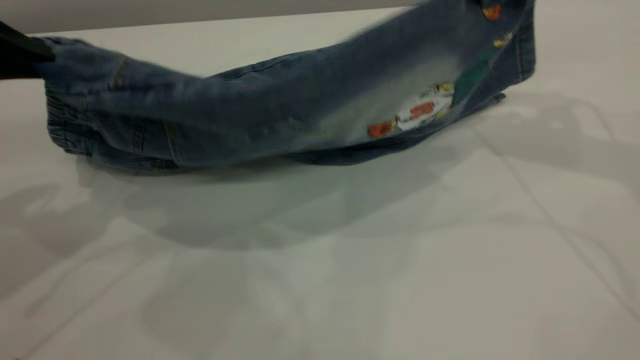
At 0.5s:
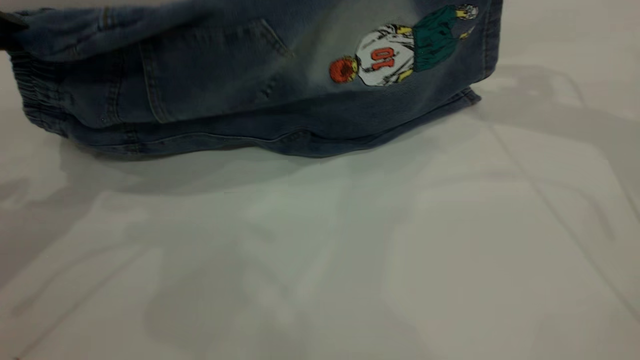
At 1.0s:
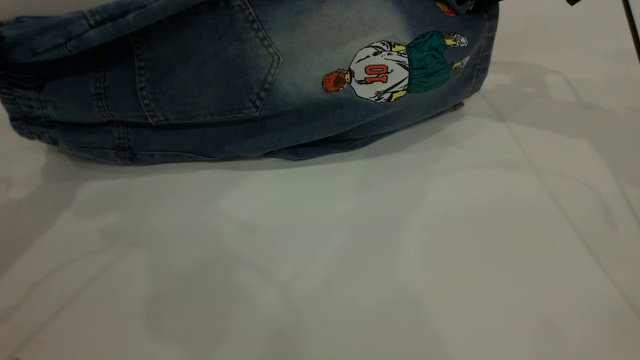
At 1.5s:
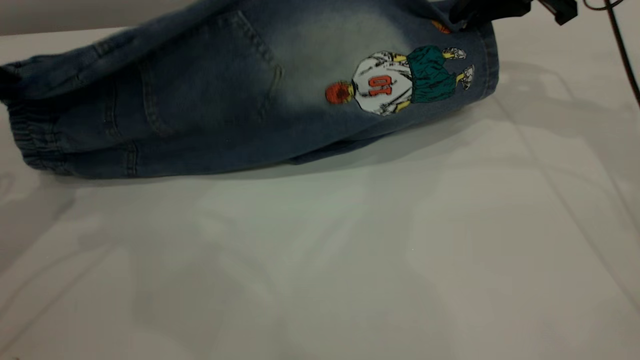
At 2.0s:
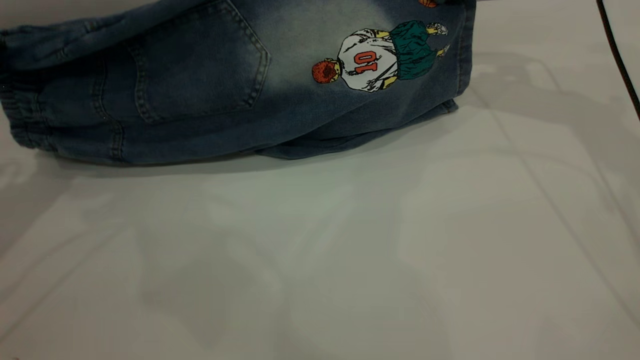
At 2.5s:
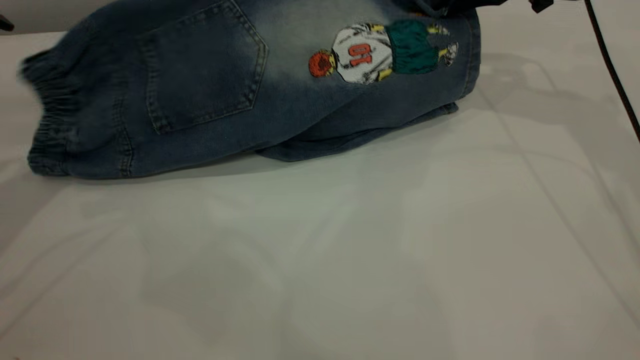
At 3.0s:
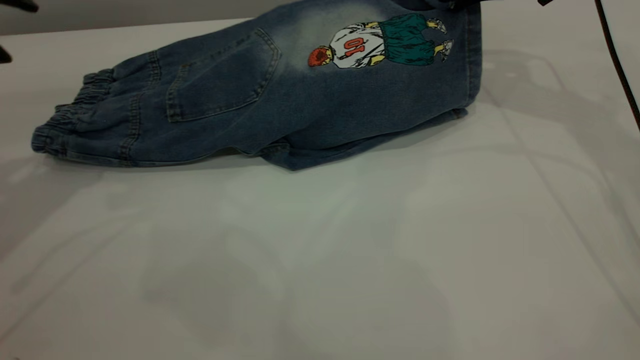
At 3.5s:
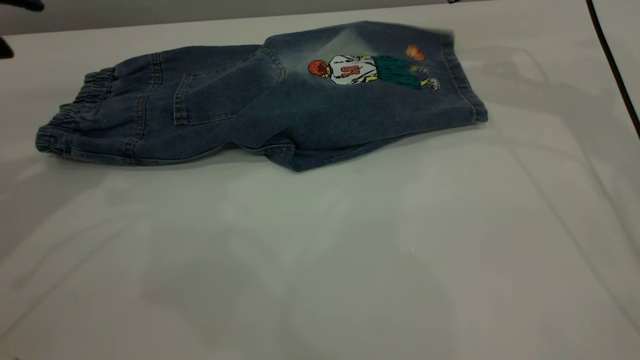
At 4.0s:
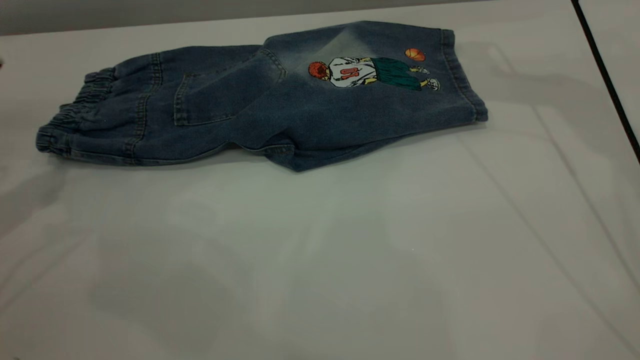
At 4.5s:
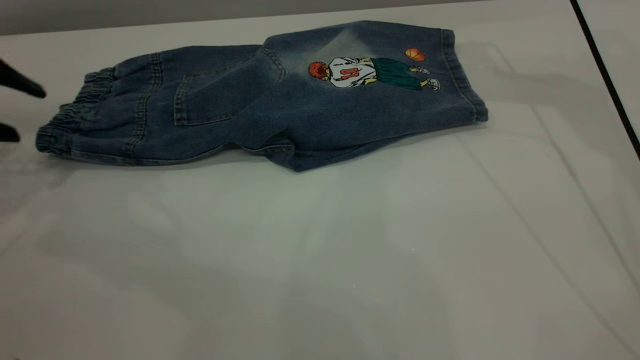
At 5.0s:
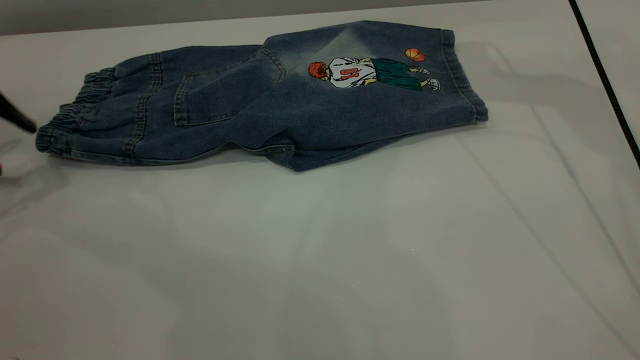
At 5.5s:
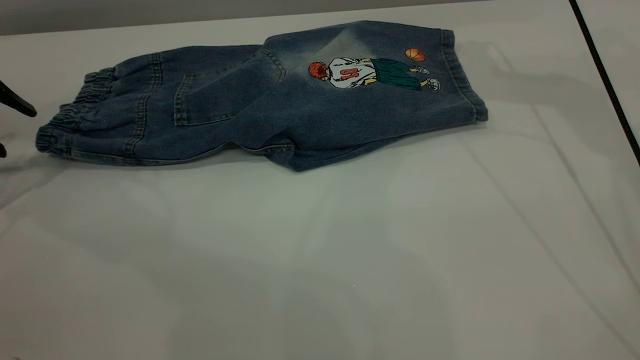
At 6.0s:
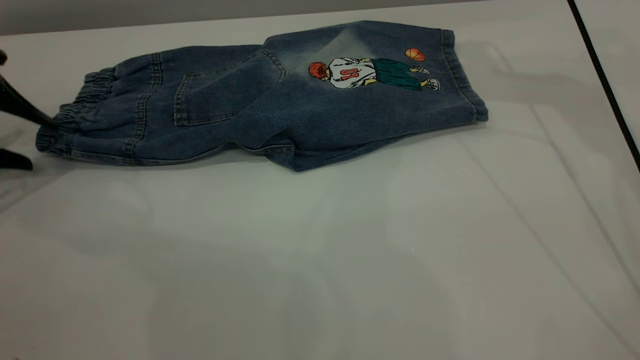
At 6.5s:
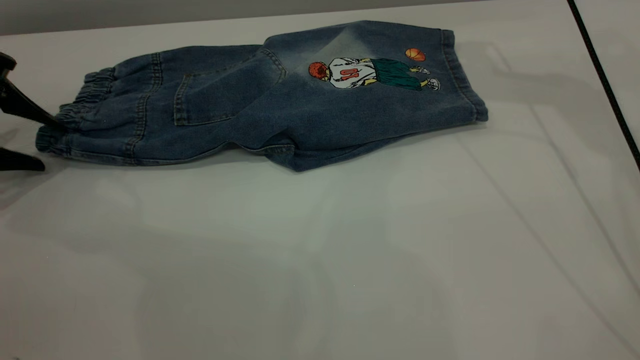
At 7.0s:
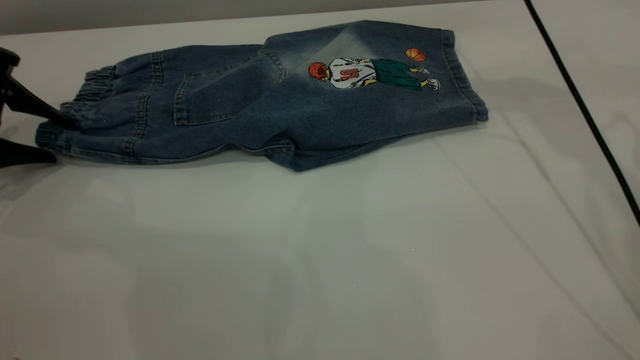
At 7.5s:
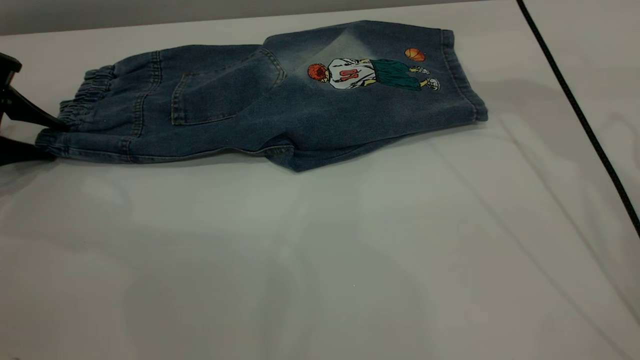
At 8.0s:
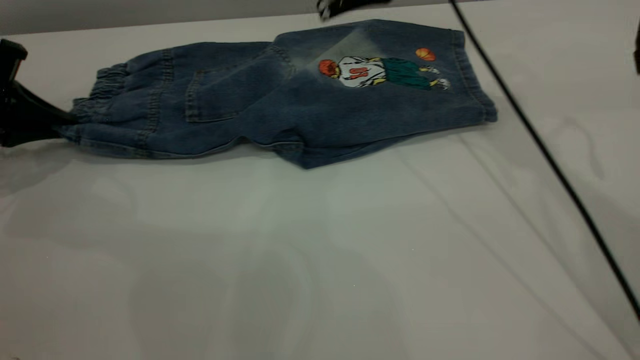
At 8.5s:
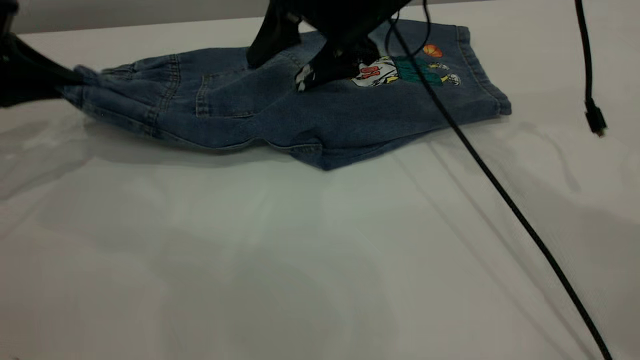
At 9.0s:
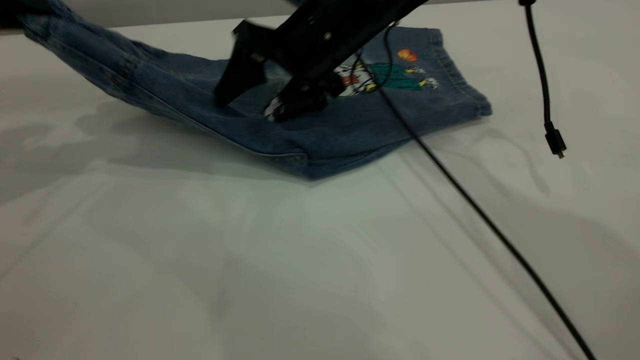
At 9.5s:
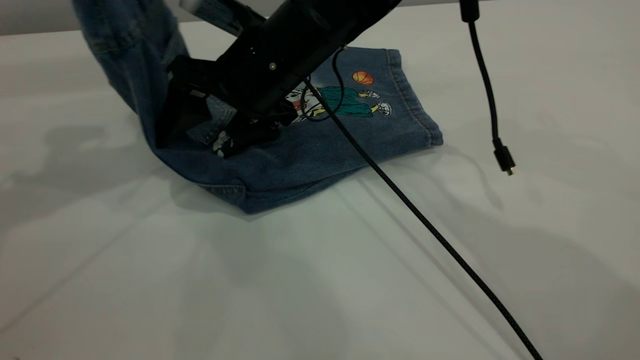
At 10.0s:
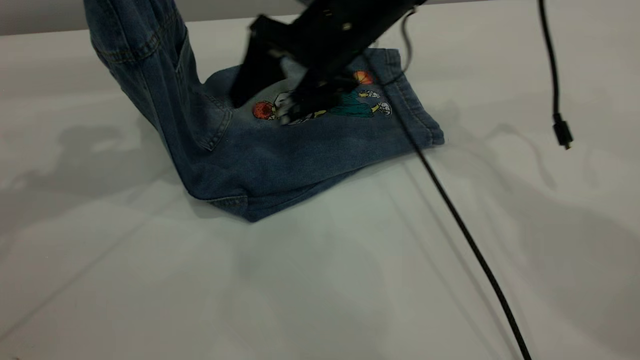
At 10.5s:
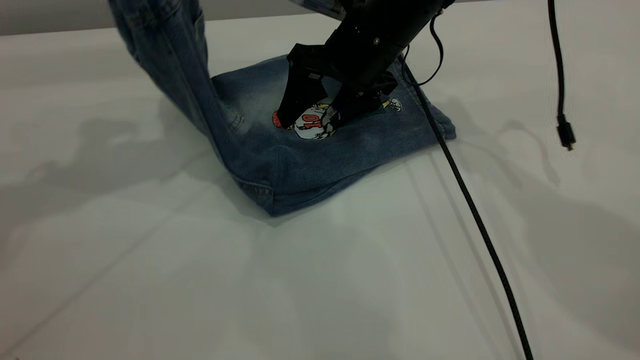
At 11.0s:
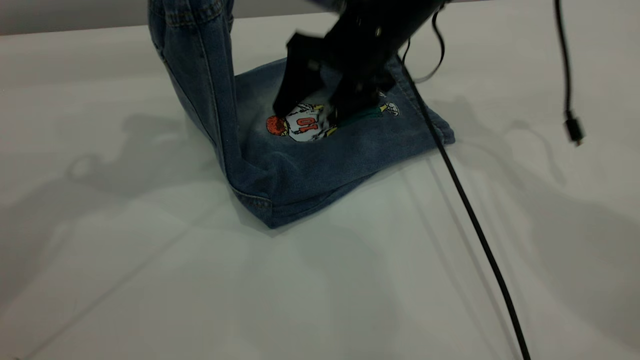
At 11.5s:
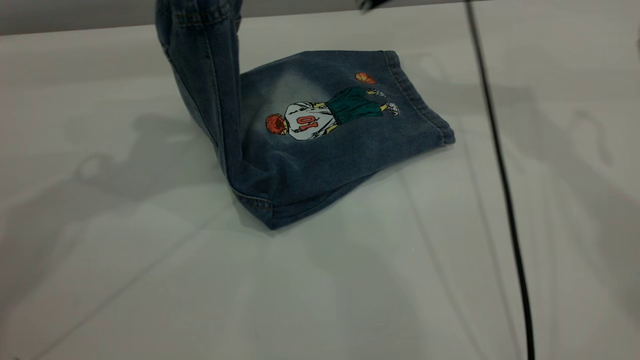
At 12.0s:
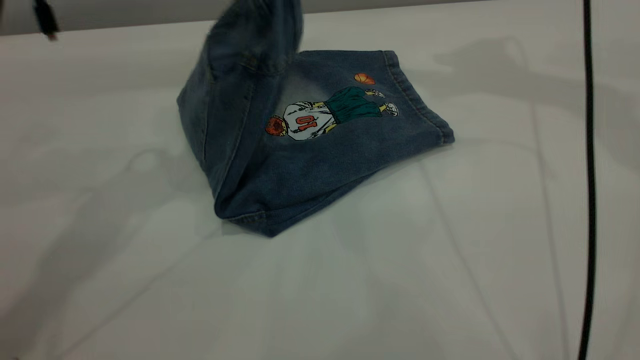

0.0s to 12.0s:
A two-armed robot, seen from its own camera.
Step, 0.0s to 4.0s: Fold the bottom of the pants upward.
0.0s to 2.0s: The left gripper moves approximately 5 cm. Meanwhile the right gripper heads forward, covering approximately 10 cm.
2.0s to 4.0s: The left gripper opens its fingers, while the right gripper shifts by about 5 cm, and opens its fingers.
4.0s to 6.0s: The left gripper travels downward and forward by about 10 cm.
6.0s to 8.0s: The left gripper closes, while the right gripper heads to the left, covering about 10 cm.
8.0s to 10.0s: The left gripper goes about 20 cm upward and to the right, while the right gripper is displaced downward by about 10 cm.
10.0s to 12.0s: The right gripper heads upward and to the right, covering about 25 cm. Meanwhile the left gripper goes roughly 15 cm to the right.

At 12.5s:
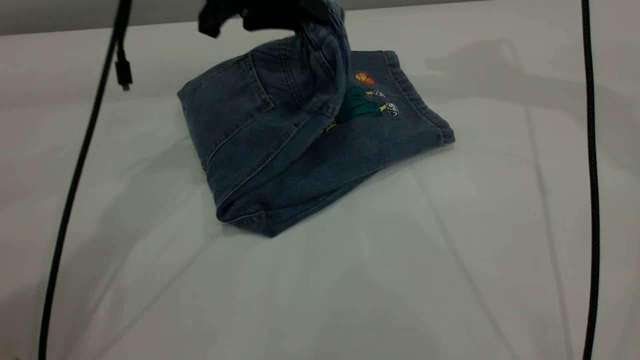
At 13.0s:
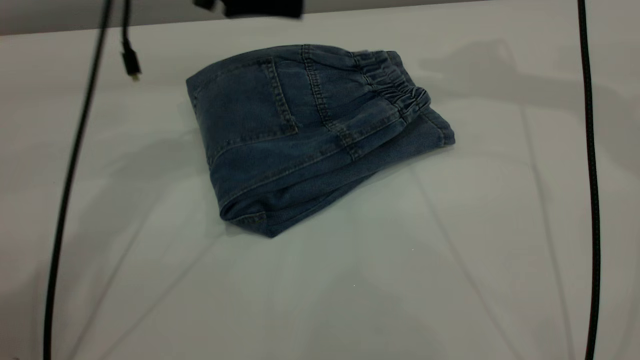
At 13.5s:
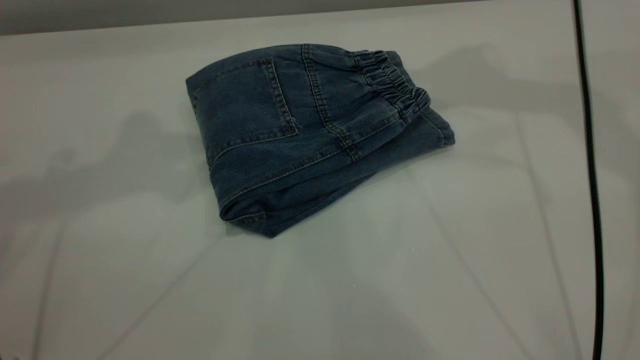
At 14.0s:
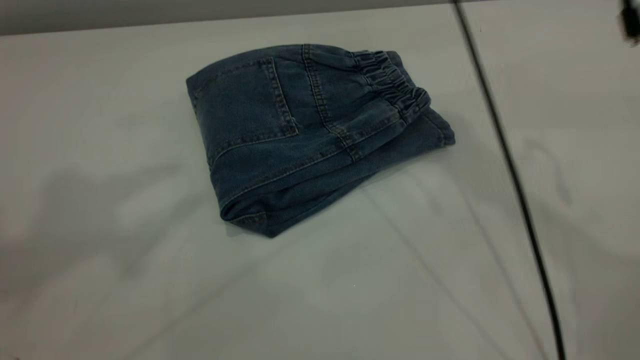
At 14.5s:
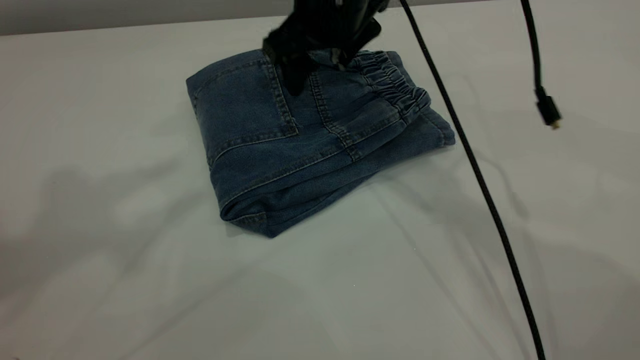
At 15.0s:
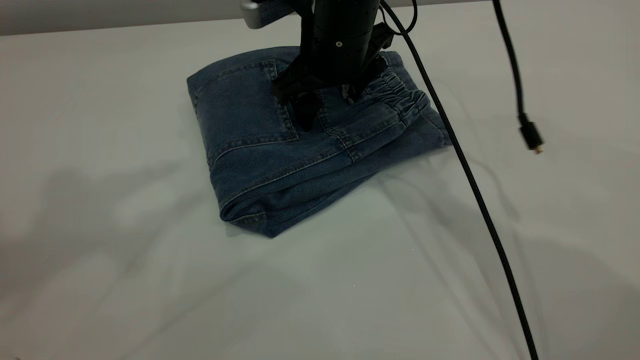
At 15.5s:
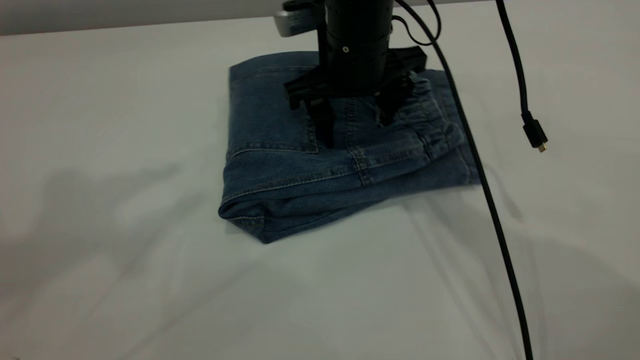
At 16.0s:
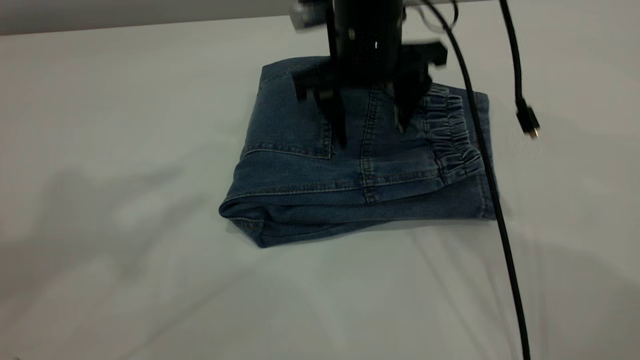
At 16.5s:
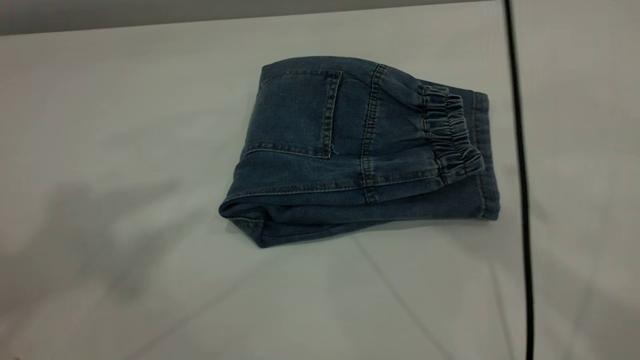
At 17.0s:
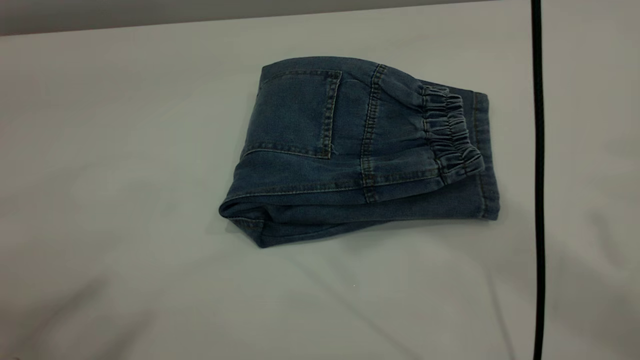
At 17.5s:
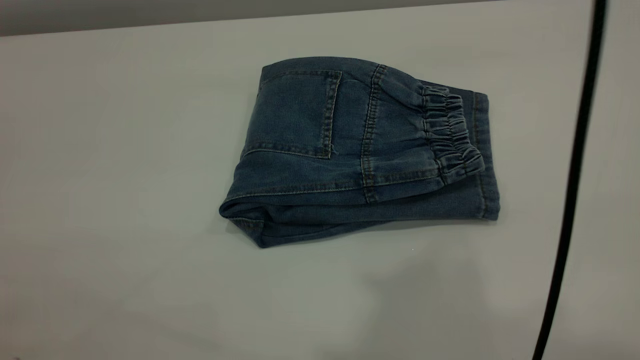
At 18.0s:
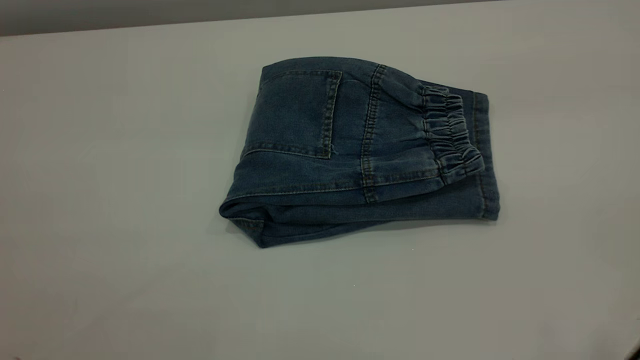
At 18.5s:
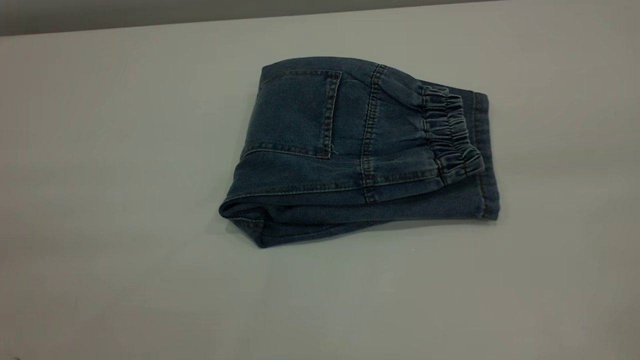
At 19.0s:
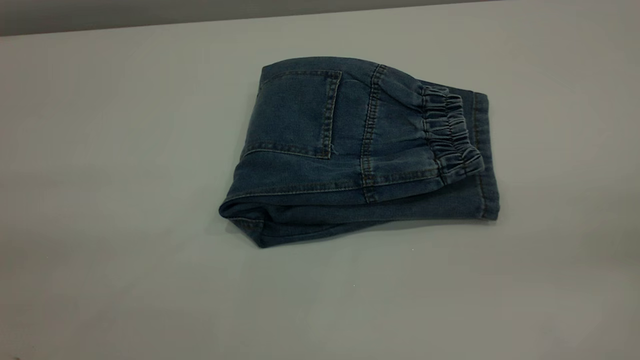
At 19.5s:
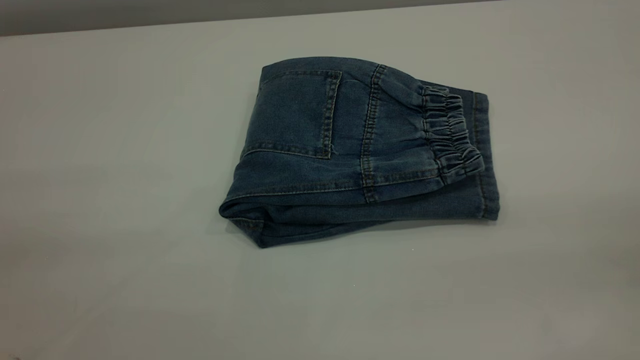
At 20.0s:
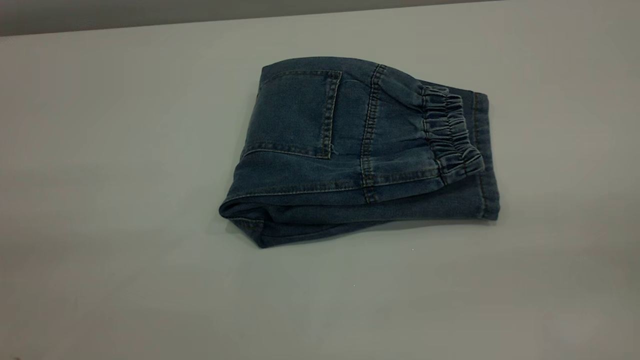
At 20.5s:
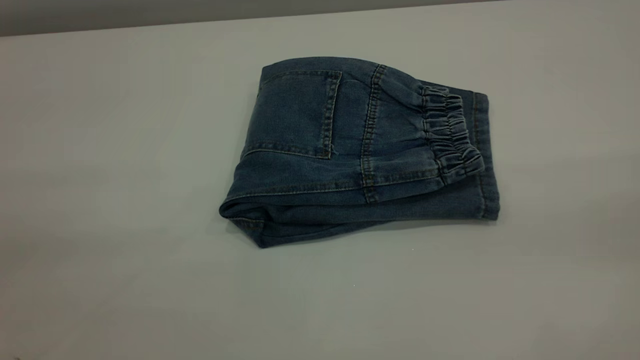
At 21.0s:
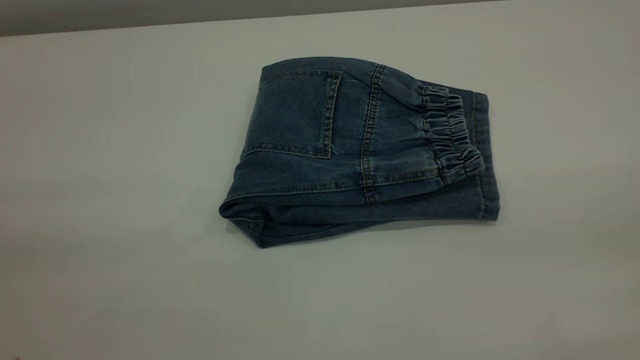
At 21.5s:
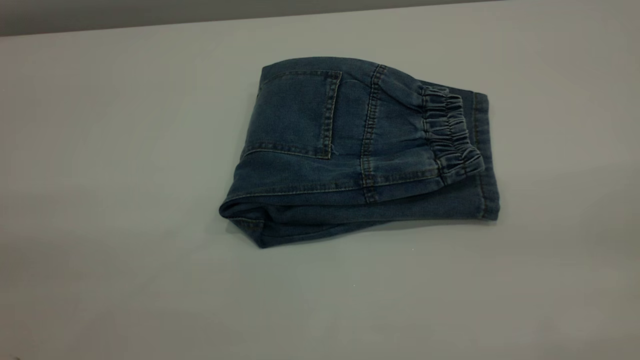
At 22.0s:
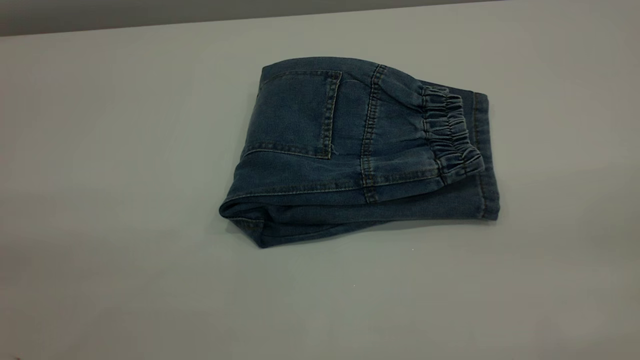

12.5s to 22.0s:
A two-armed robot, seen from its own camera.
12.5s to 14.5s: The left gripper goes approximately 35 cm upward, to the left and backward, and opens its fingers. Meanwhile the right gripper travels to the left and downward by roughly 25 cm.
14.5s to 16.5s: The right gripper heads upward, covering approximately 15 cm.
16.5s to 18.0s: The right gripper moves backward and upward, about 35 cm.
